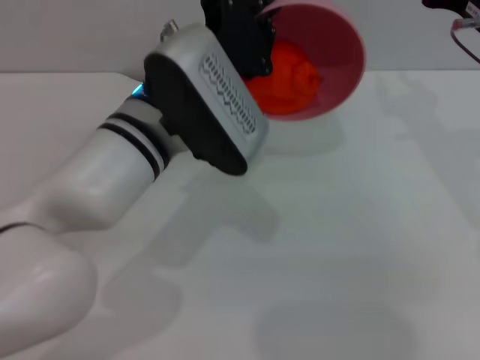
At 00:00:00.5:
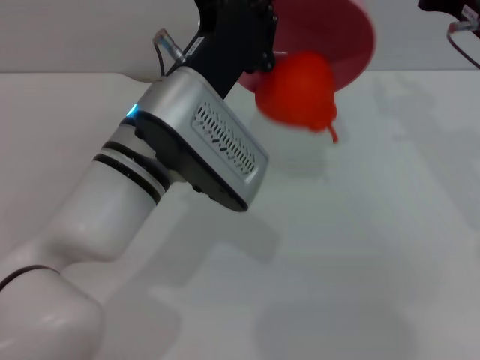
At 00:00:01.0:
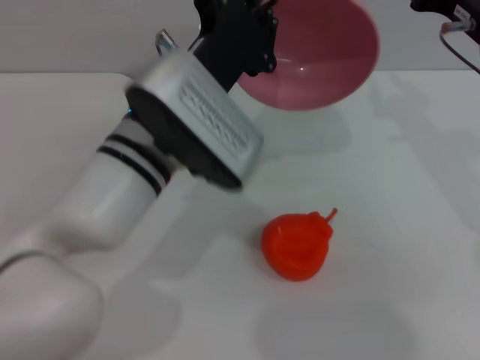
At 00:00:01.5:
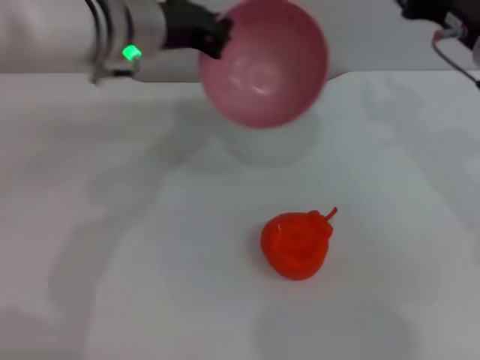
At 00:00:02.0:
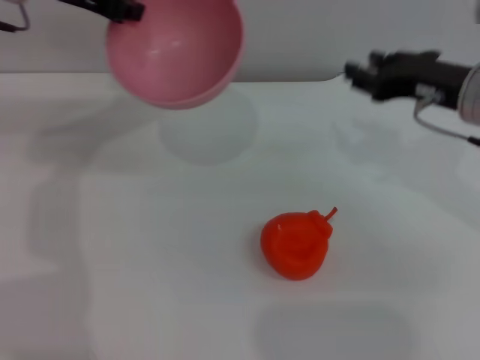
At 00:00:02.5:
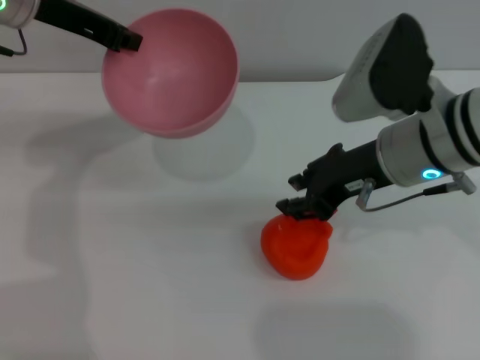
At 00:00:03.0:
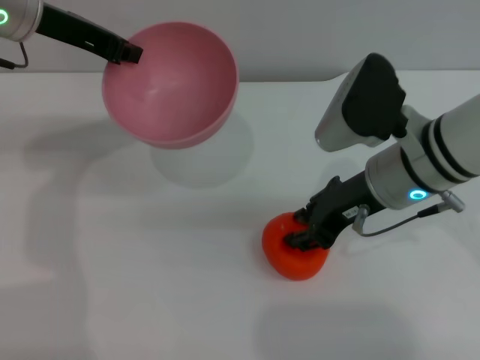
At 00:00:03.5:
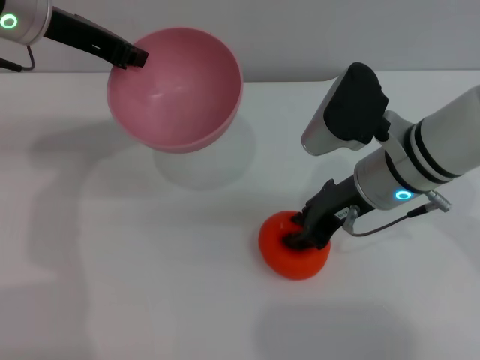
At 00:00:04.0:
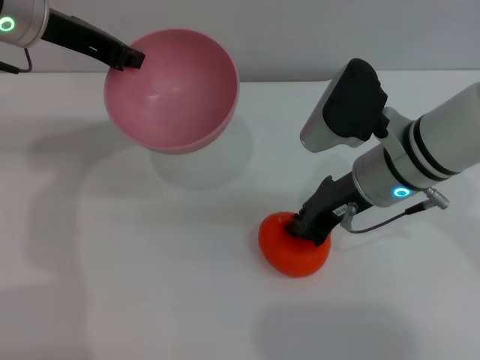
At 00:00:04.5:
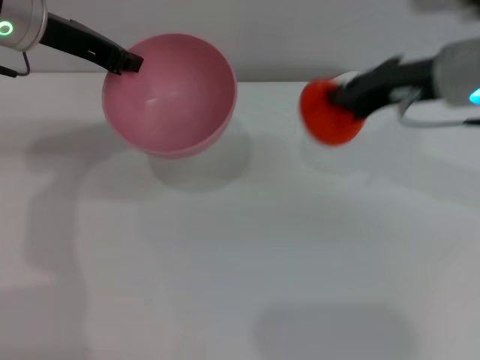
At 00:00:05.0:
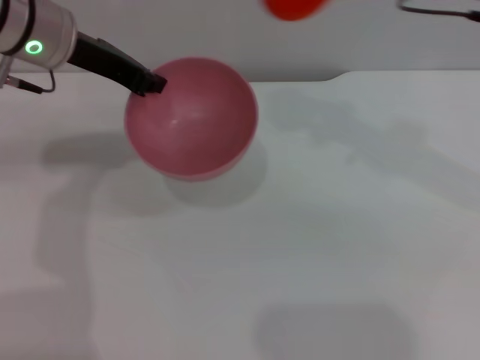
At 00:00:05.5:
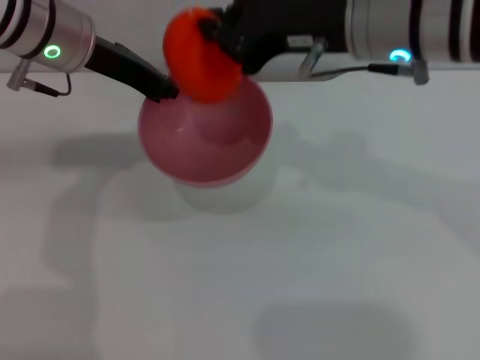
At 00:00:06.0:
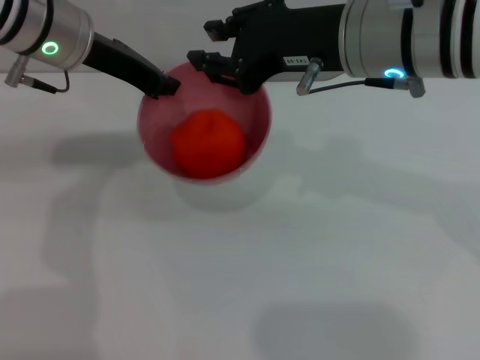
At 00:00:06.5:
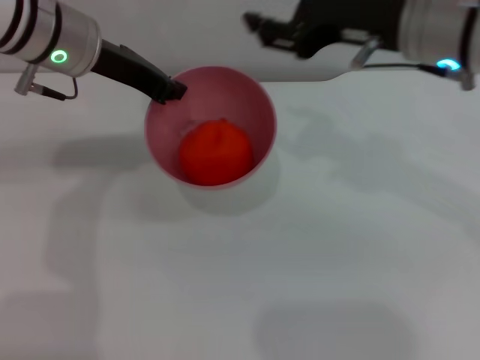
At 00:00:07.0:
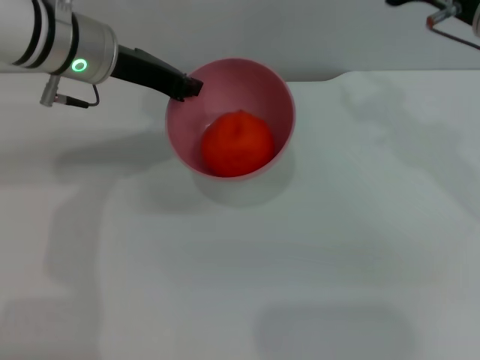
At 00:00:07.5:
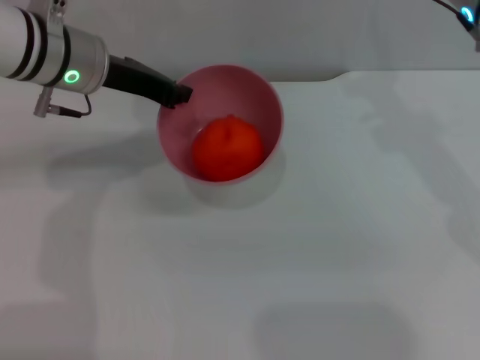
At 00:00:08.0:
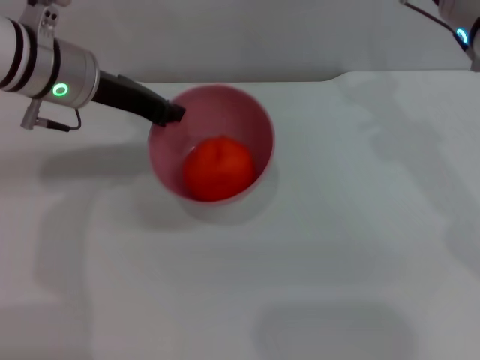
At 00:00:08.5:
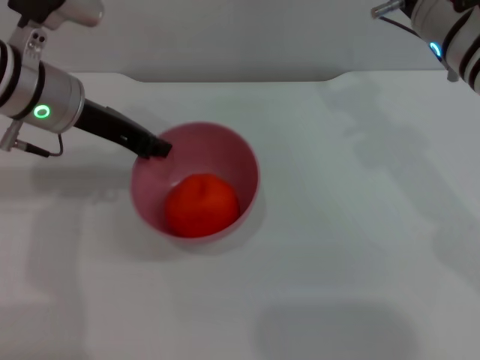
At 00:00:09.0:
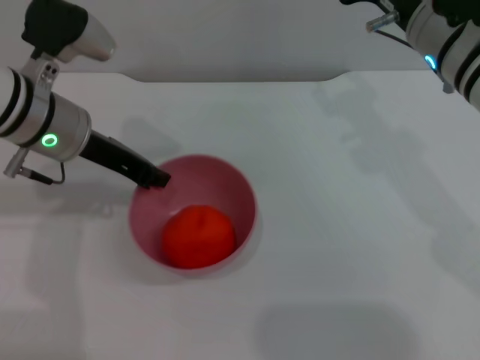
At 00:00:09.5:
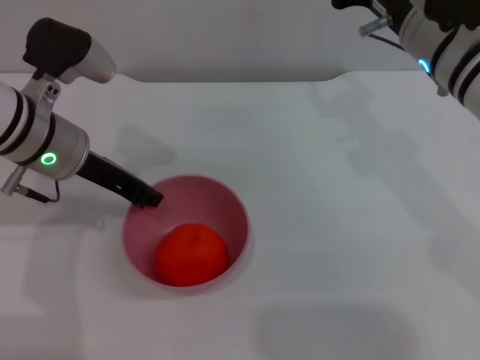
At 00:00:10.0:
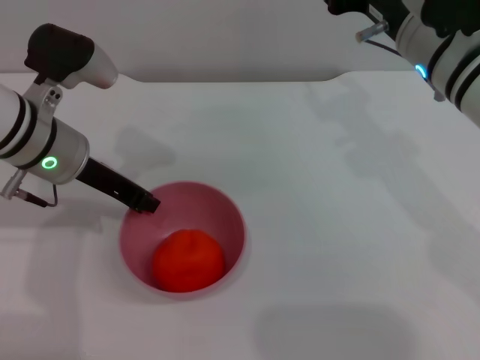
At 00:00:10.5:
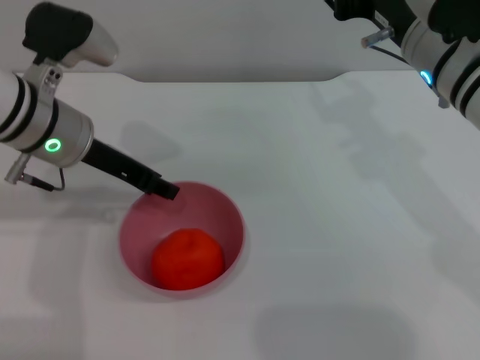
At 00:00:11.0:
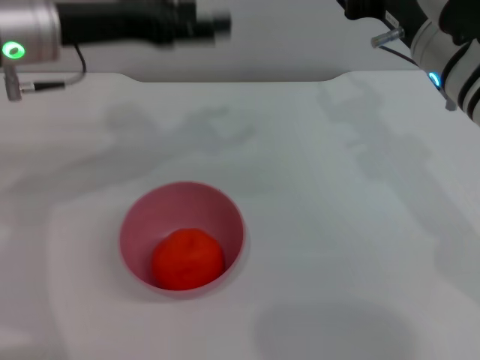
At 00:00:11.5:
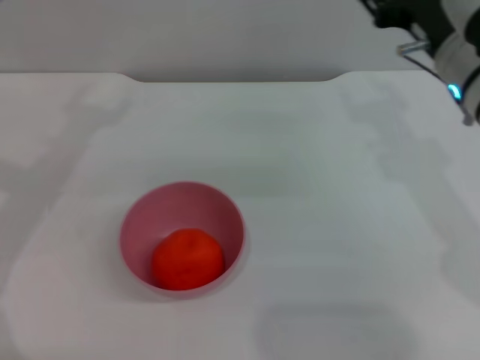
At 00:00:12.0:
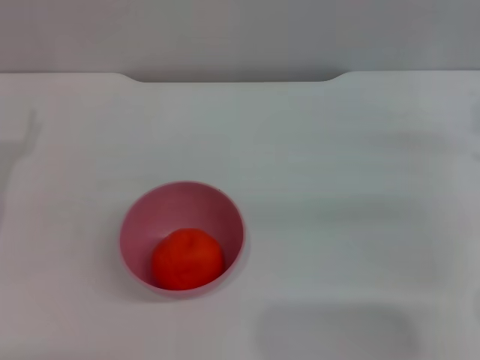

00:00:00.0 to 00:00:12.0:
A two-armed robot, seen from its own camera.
Task of the whole recording: put the orange into the pink bowl and pour it out repeatedly.
Step, 00:00:01.0 to 00:00:04.0: Pick up the orange with the right gripper.
Step, 00:00:04.5 to 00:00:06.0: Place the orange into the bowl.
Step, 00:00:06.5 to 00:00:10.5: Place the bowl on the table.
00:00:00.0 to 00:00:02.0: The left gripper moves to the left, forward and upward, some 20 cm.
00:00:02.0 to 00:00:04.0: The right gripper travels to the left by roughly 10 cm, and closes.
00:00:04.0 to 00:00:06.0: The right gripper is displaced upward by approximately 15 cm, and opens up.
00:00:06.0 to 00:00:08.0: The right gripper is displaced to the right by about 10 cm, and opens.
00:00:08.0 to 00:00:10.0: The left gripper changes place by some 5 cm.
00:00:10.0 to 00:00:12.0: The right gripper shifts roughly 15 cm to the right and downward; the left gripper heads to the left and backward, covering about 15 cm, and opens.
